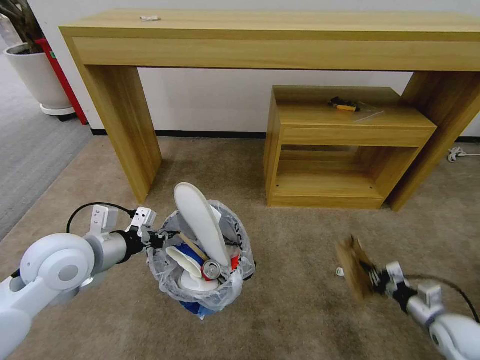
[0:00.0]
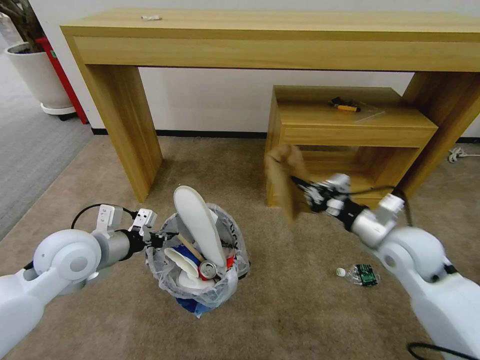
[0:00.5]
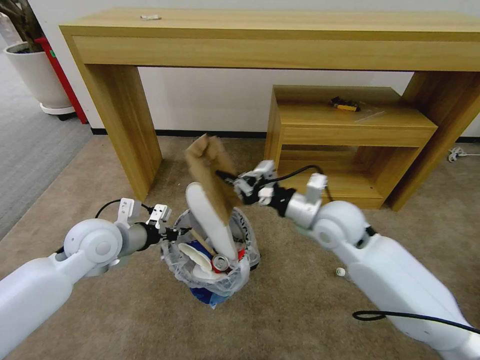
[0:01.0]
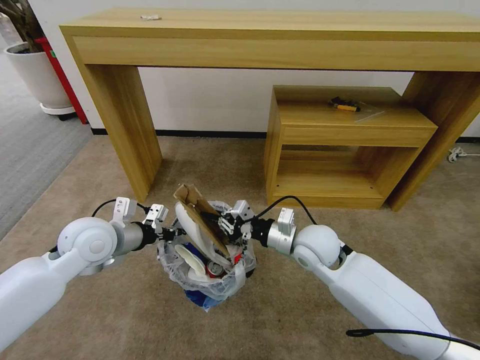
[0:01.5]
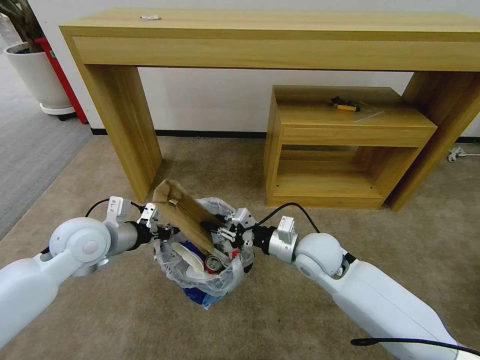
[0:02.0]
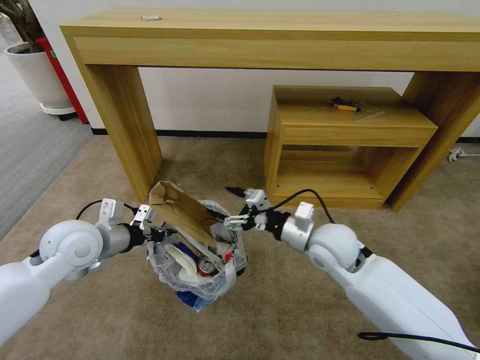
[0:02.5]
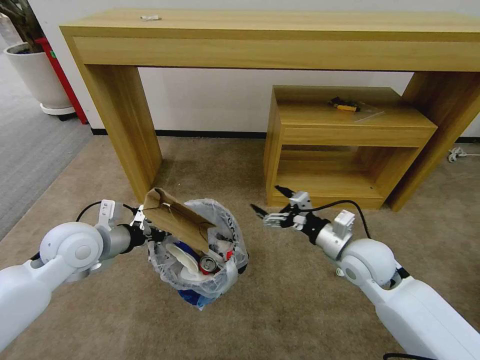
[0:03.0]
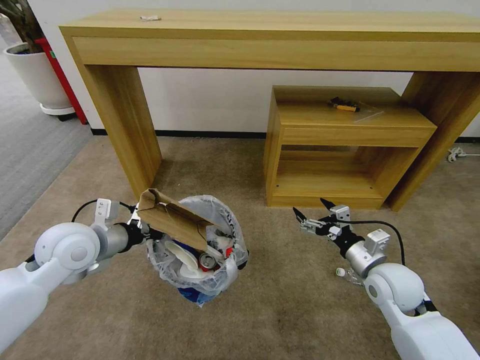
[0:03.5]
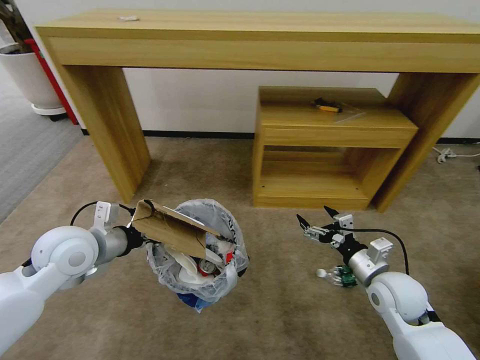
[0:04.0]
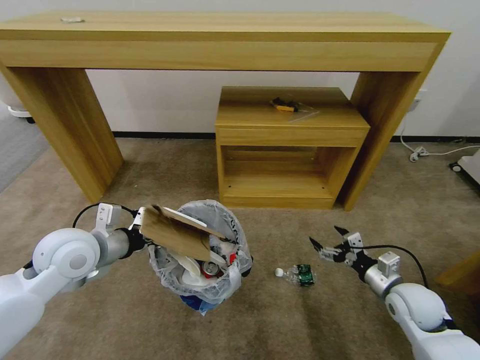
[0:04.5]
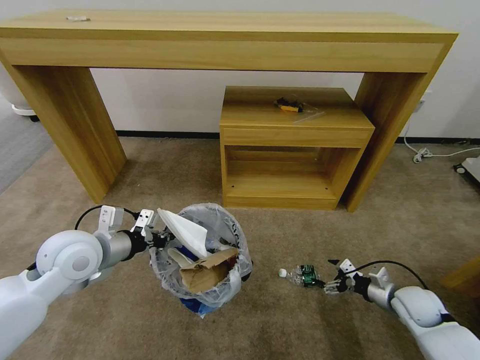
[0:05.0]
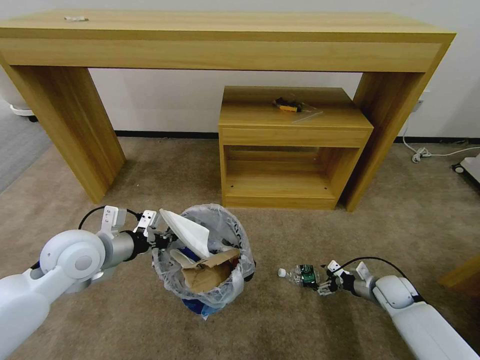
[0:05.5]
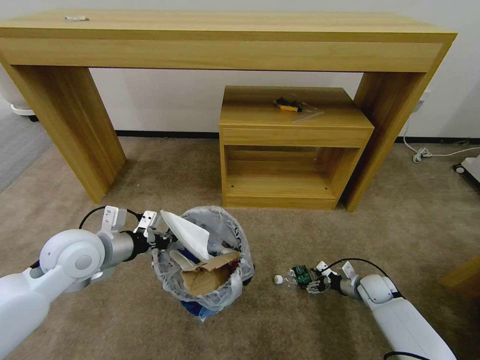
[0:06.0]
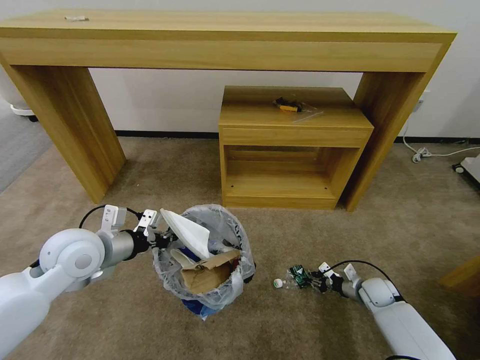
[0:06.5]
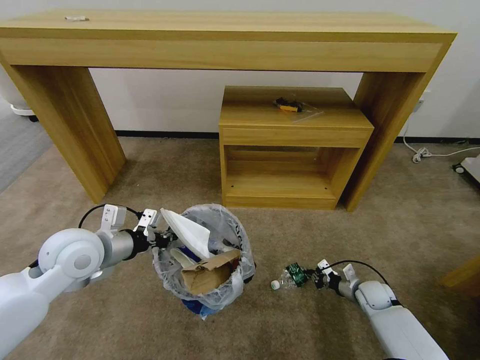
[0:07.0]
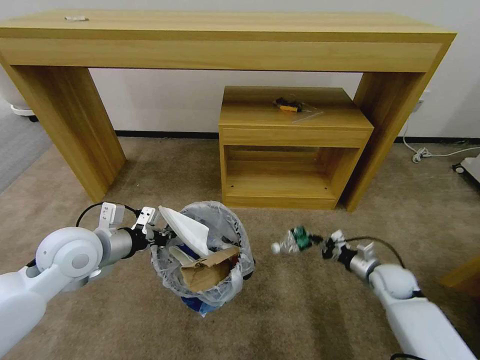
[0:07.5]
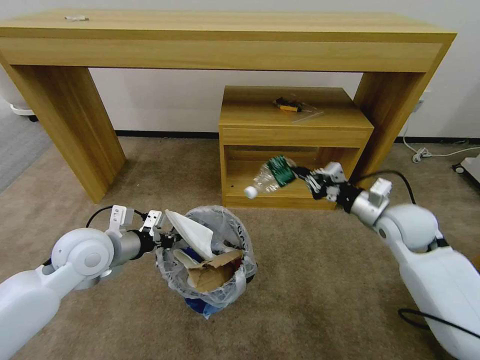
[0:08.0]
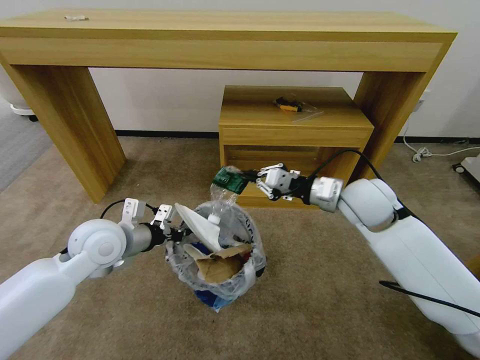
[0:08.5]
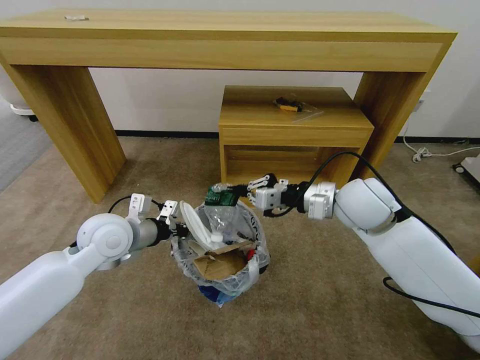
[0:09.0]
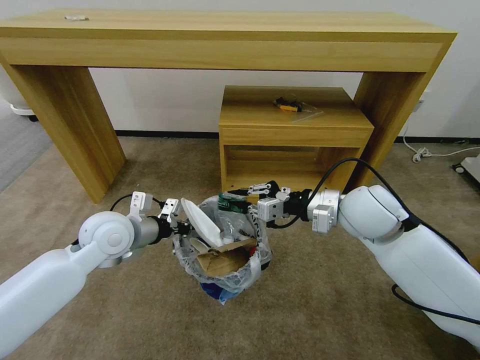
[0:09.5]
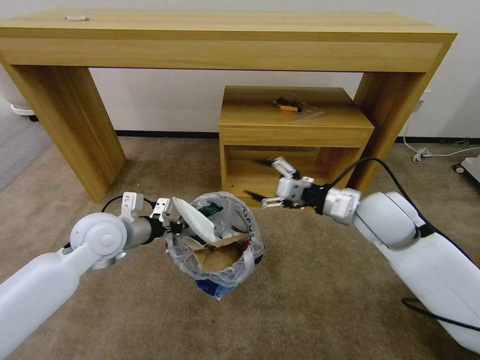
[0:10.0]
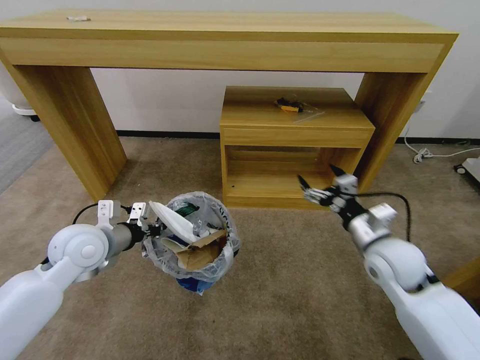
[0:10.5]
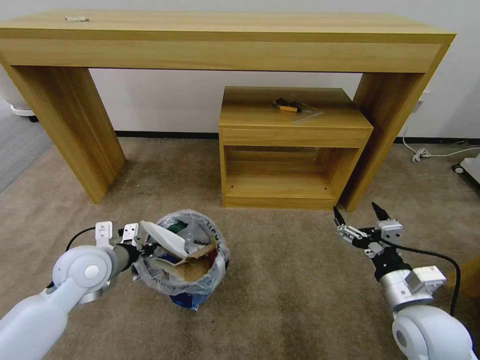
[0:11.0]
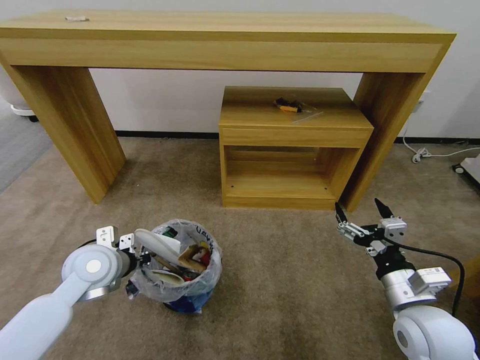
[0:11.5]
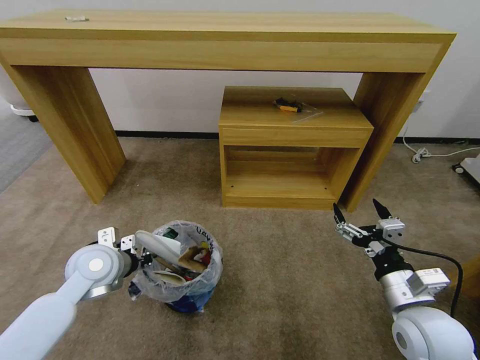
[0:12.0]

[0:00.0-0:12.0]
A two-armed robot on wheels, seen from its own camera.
Task of the whole recording: Pick up the trash bin and place the garbage on the floor into it.
0:00.0 to 0:02.0: The left gripper goes about 5 cm forward, while the right gripper shifts about 30 cm to the left.
0:02.0 to 0:04.0: The right gripper goes about 15 cm to the right and backward, and opens up.
0:04.0 to 0:06.0: The right gripper is displaced downward, to the right and forward by some 25 cm.
0:06.0 to 0:08.0: The right gripper moves upward, approximately 30 cm, and closes up.
0:08.0 to 0:10.0: The right gripper moves to the left and upward, about 10 cm, and opens its fingers.
0:10.0 to 0:12.0: The left gripper moves downward, approximately 5 cm. Meanwhile the right gripper shifts about 20 cm backward and downward.

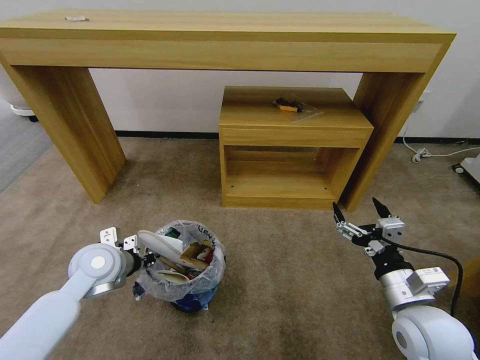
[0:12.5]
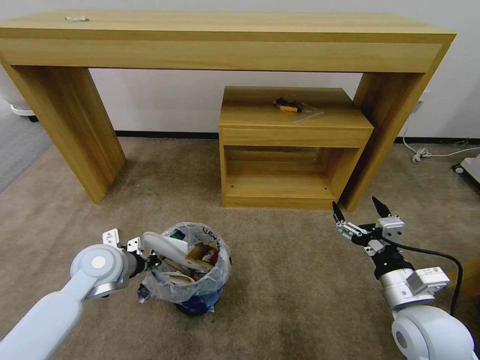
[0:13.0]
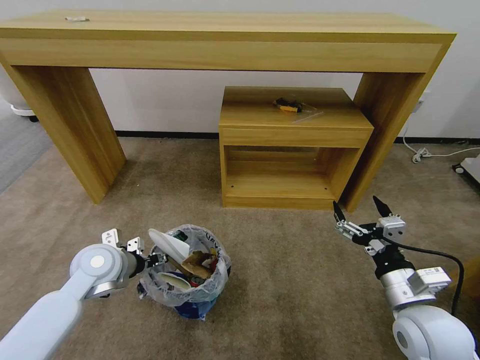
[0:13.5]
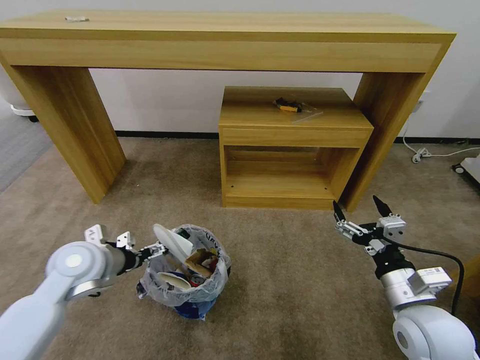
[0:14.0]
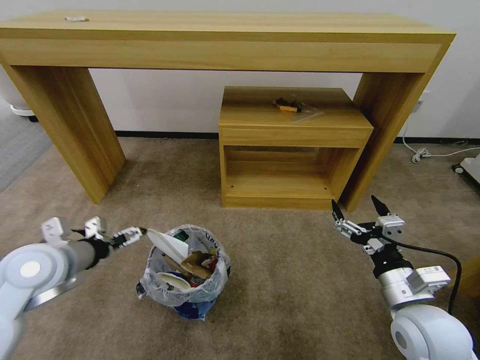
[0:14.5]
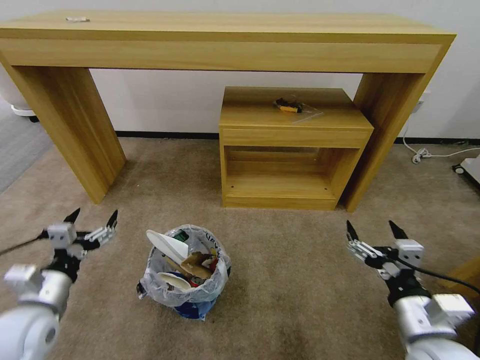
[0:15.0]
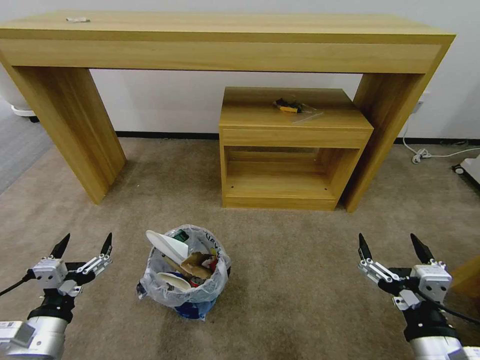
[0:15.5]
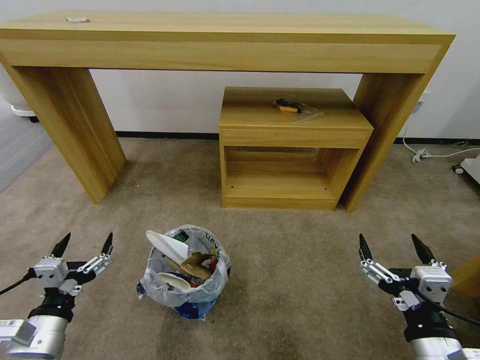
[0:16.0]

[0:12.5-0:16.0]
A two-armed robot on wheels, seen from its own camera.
Task of the whole recording: Pick up the trash bin and place the garbage on the floor into it.
0:12.5 to 0:14.5: The left gripper goes about 10 cm upward and to the left, and opens.
0:14.5 to 0:16.0: The right gripper goes approximately 10 cm backward, while the left gripper goes roughly 20 cm backward and downward.
